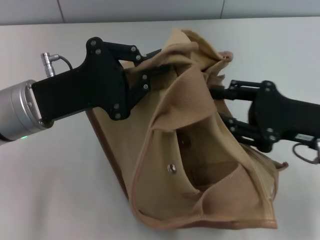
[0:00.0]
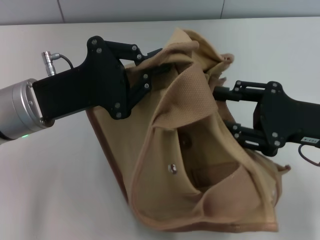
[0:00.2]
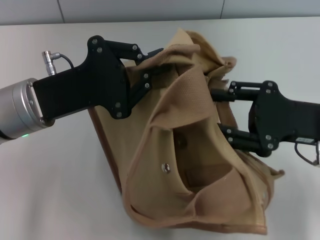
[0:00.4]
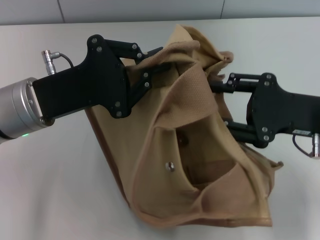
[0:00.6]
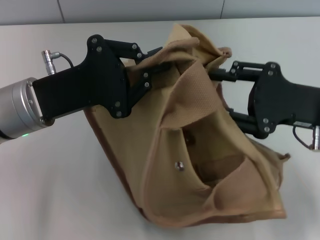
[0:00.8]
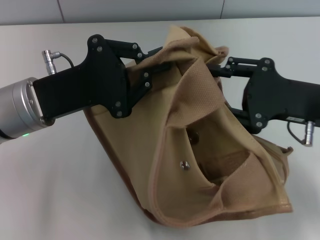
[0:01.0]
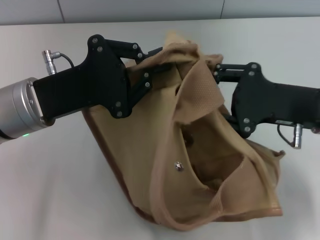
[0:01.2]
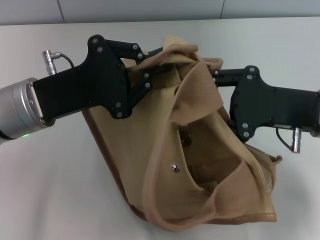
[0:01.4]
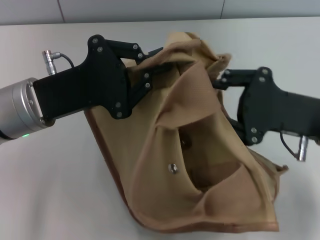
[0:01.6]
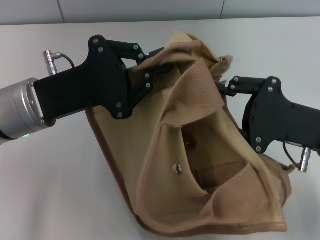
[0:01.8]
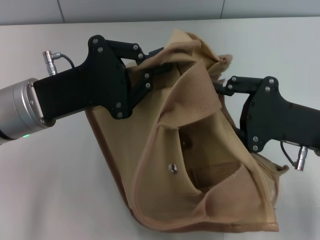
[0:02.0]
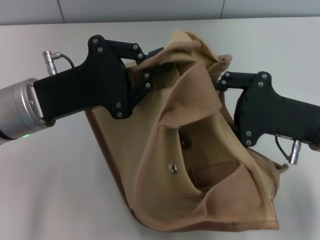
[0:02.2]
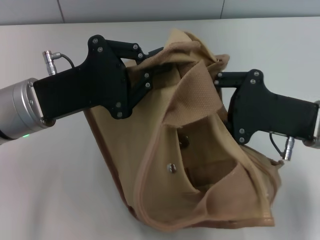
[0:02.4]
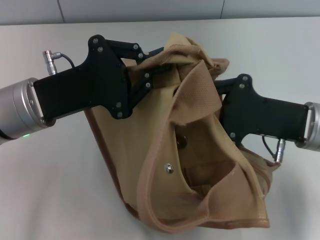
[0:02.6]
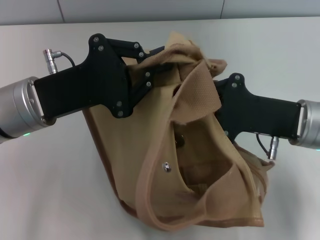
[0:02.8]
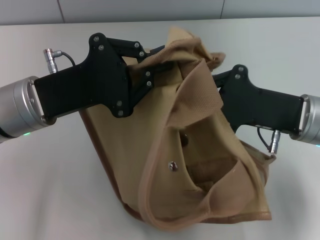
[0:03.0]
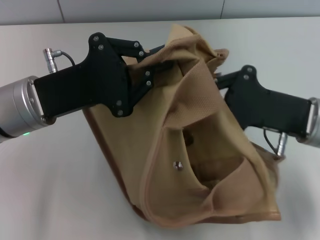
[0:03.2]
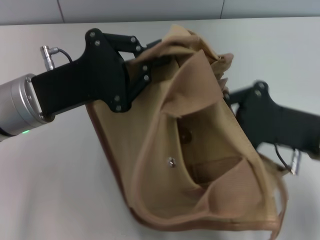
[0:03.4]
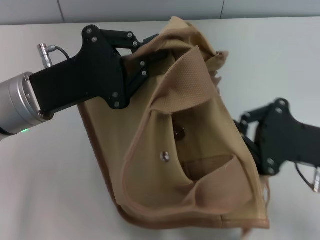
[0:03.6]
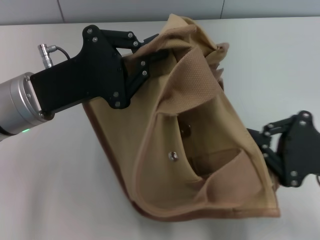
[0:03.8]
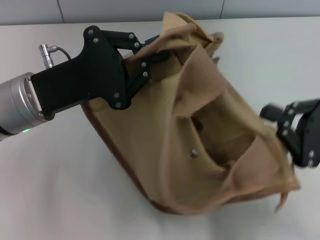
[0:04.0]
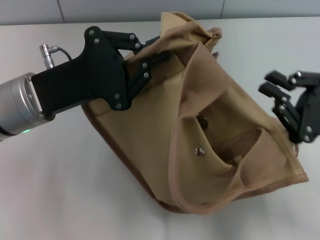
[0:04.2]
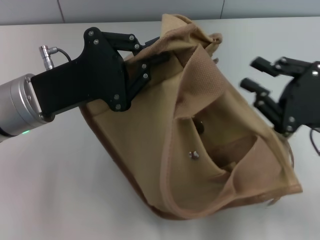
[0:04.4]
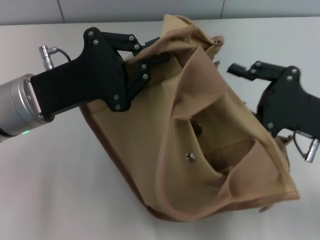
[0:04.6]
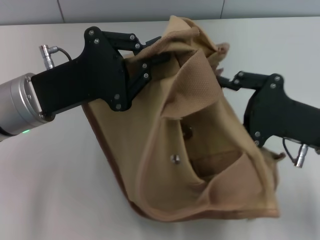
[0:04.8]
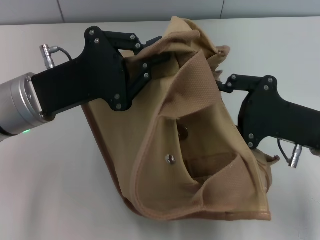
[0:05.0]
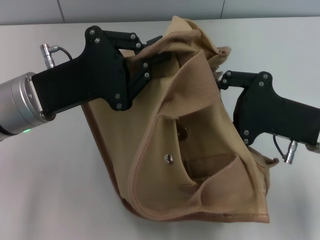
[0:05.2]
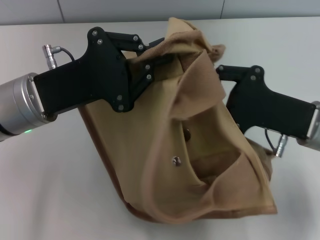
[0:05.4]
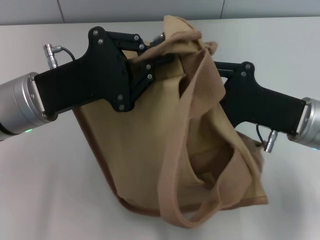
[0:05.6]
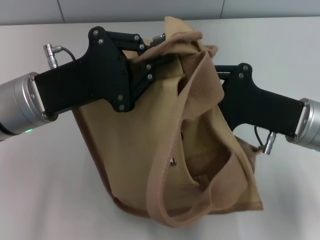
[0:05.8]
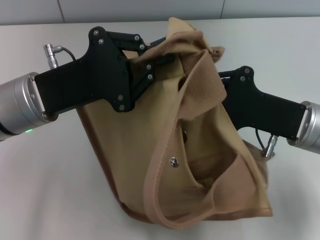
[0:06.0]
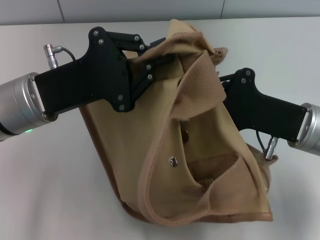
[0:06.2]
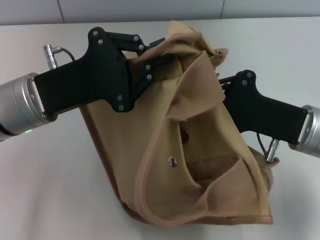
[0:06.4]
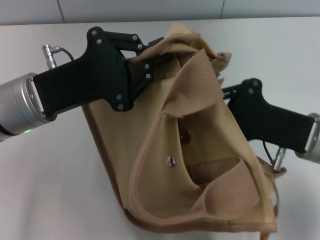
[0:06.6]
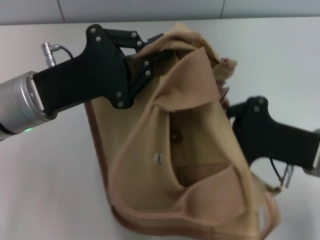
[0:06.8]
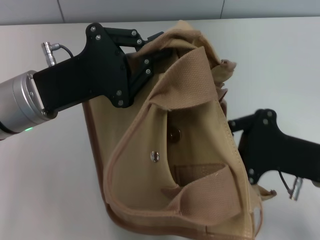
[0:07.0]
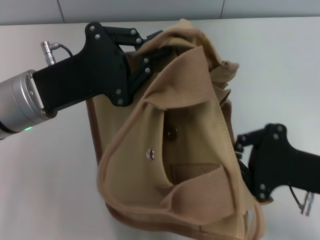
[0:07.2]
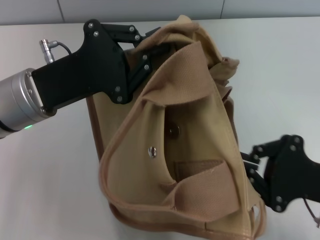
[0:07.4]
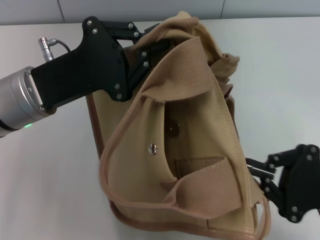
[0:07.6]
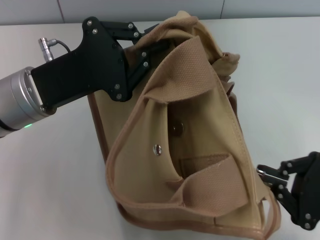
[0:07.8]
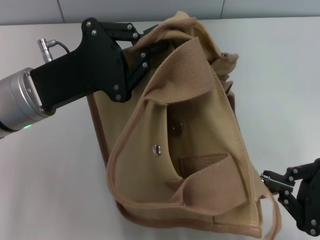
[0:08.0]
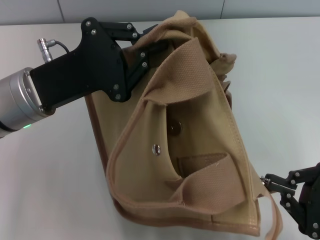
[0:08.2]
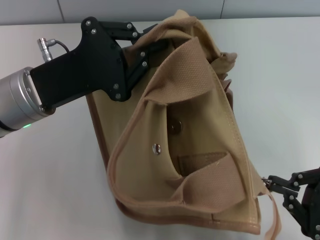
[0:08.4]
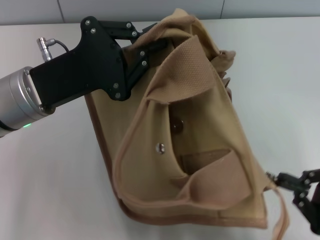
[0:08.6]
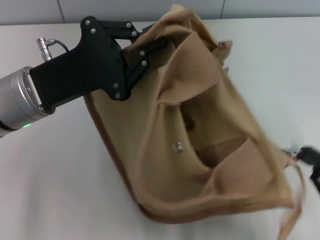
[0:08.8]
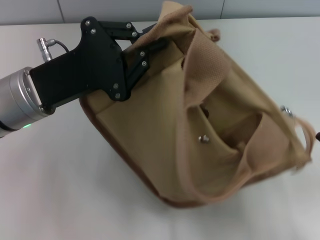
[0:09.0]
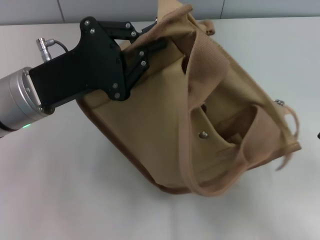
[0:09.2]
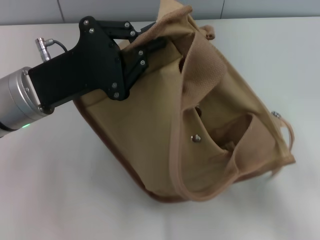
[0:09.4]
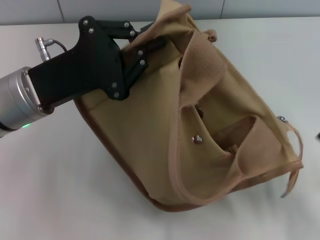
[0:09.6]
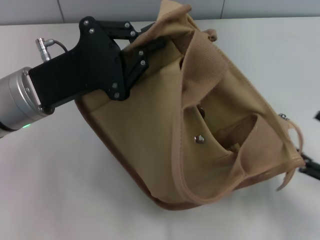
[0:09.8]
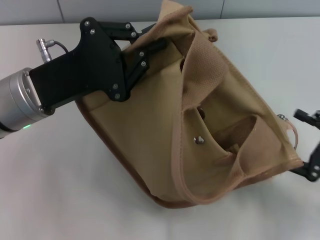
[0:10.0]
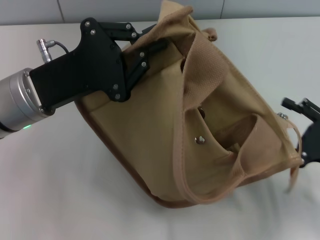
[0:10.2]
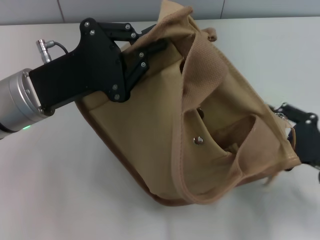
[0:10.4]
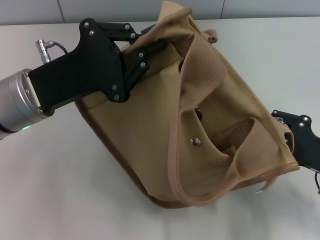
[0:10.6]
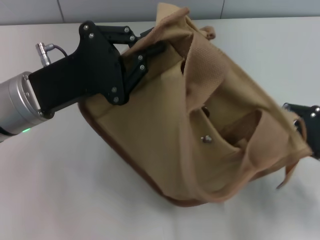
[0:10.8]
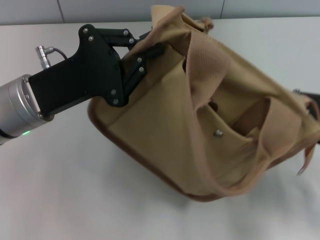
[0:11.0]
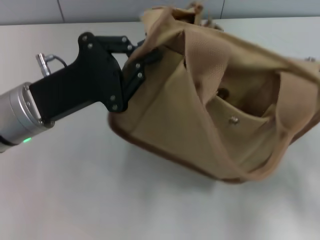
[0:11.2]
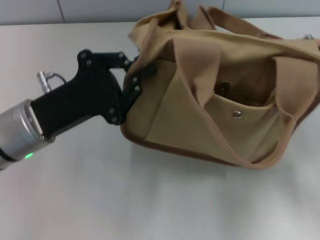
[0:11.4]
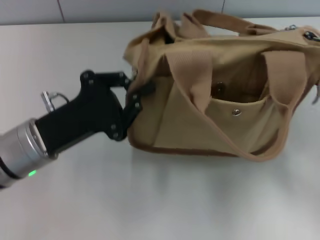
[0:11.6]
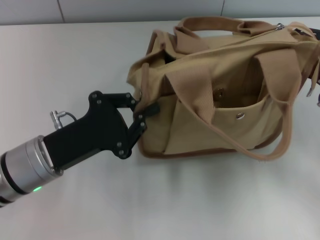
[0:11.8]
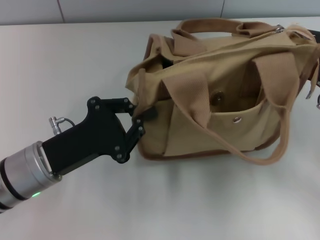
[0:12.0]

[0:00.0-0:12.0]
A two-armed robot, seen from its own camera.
Step, 0:00.0 to 0:09.2: Pull open the zipper with your right hand.
0:01.6 to 0:03.0: The right gripper closes up.
0:03.0 to 0:04.4: The right gripper is displaced to the right by some 5 cm.
0:04.4 to 0:06.0: The right gripper is displaced to the left by about 5 cm, and opens up.
0:06.0 to 0:07.6: The right gripper is displaced backward and to the right by approximately 10 cm, and closes its fingers.
0:07.6 to 0:09.0: The right gripper moves roughly 5 cm.
0:09.0 to 0:10.4: The right gripper shifts about 10 cm forward, and opens its fingers.
0:10.4 to 0:12.0: The right gripper shifts some 10 cm forward, and closes its fingers; the left gripper shifts about 10 cm downward and backward.

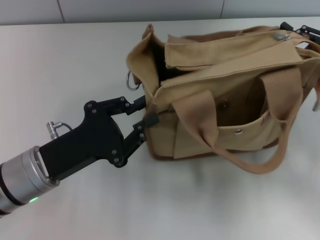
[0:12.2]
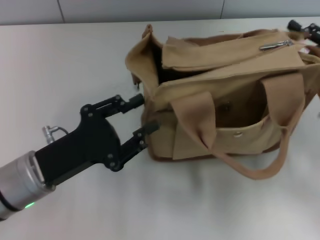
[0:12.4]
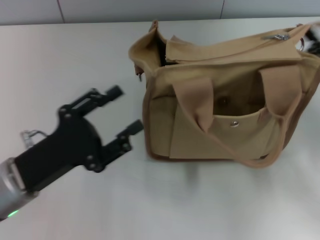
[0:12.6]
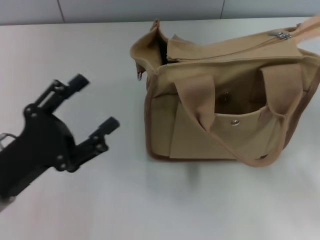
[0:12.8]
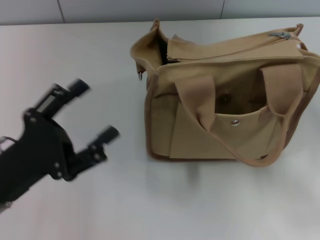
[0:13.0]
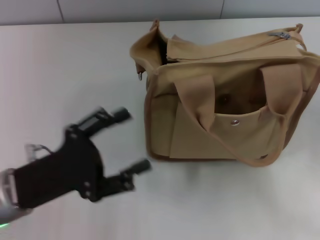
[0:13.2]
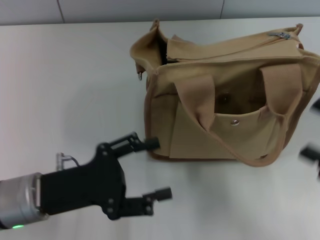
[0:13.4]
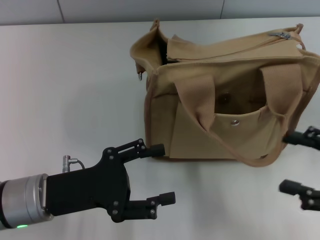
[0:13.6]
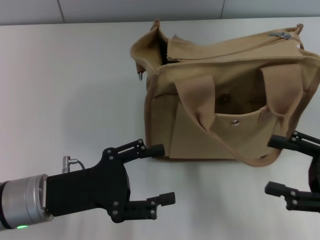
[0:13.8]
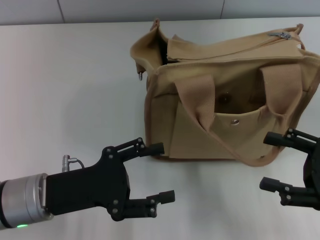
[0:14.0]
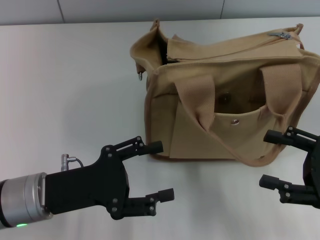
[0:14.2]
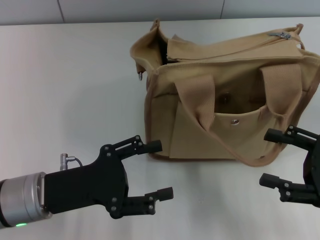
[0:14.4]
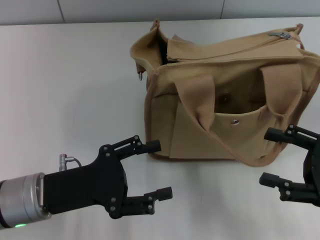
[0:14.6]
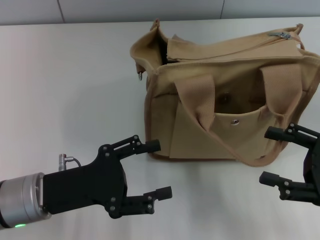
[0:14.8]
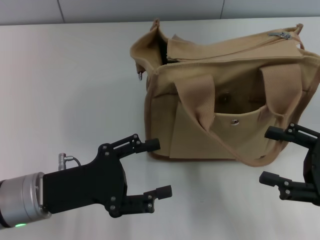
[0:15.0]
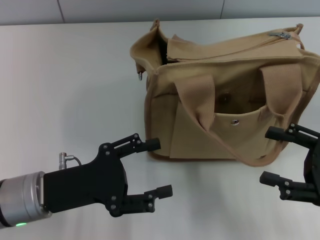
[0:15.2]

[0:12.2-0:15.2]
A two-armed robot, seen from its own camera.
0:12.2 to 0:13.8: The right gripper heads backward, covering approximately 10 cm, and opens its fingers, while the left gripper opens up.
0:13.8 to 0:15.2: Both grippers stay put.

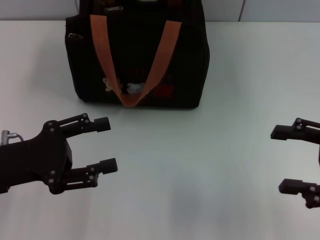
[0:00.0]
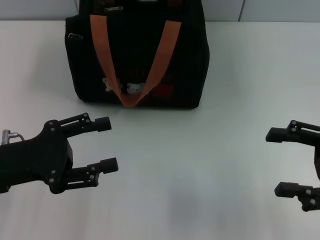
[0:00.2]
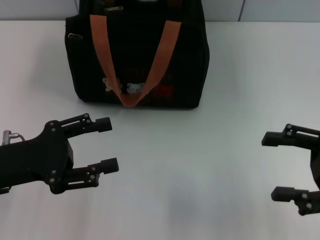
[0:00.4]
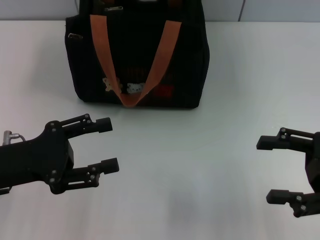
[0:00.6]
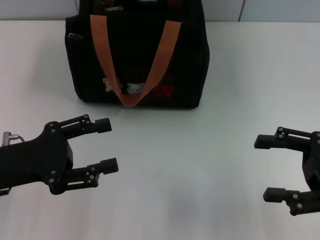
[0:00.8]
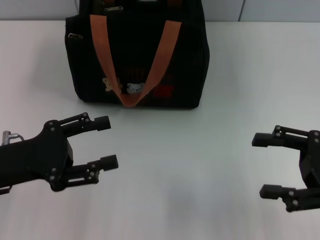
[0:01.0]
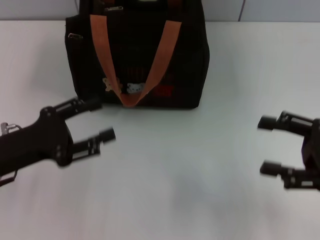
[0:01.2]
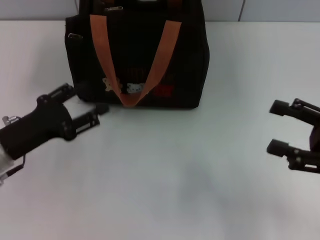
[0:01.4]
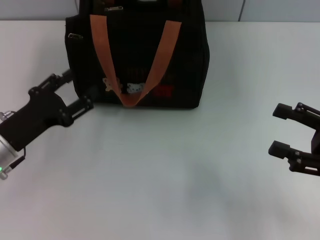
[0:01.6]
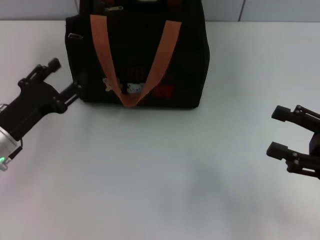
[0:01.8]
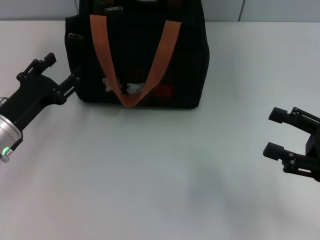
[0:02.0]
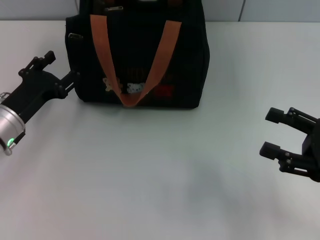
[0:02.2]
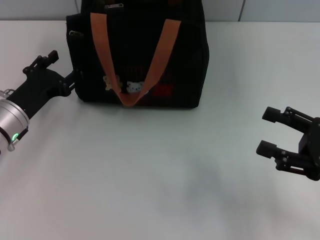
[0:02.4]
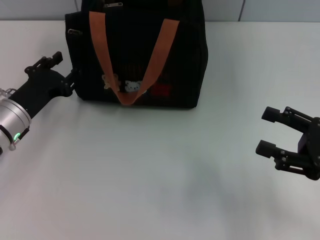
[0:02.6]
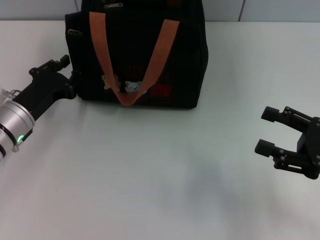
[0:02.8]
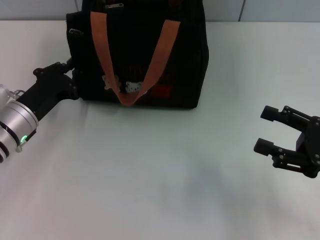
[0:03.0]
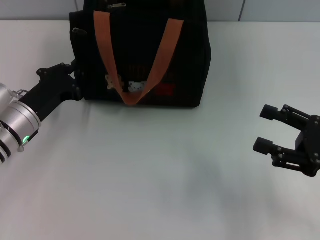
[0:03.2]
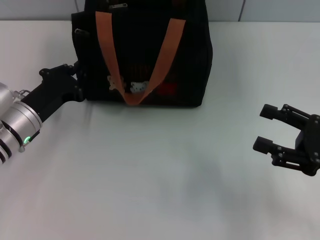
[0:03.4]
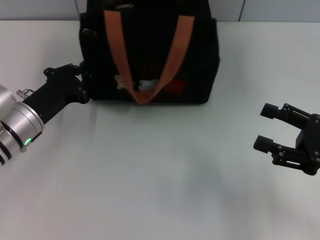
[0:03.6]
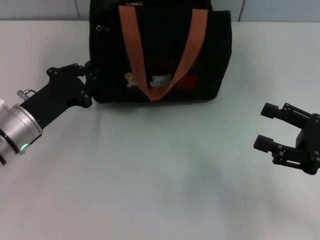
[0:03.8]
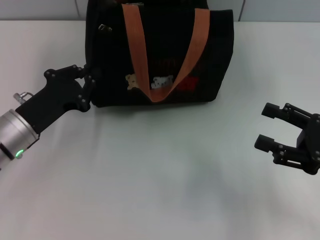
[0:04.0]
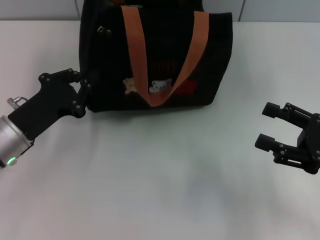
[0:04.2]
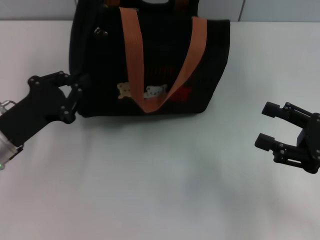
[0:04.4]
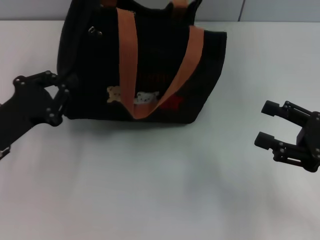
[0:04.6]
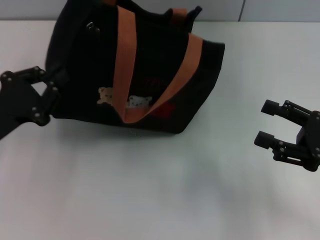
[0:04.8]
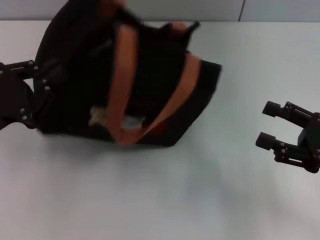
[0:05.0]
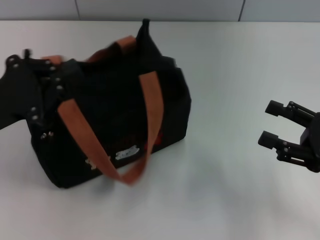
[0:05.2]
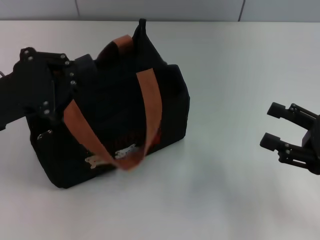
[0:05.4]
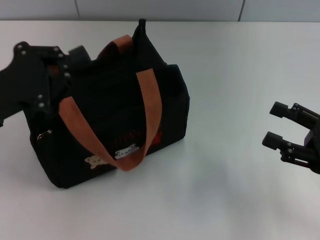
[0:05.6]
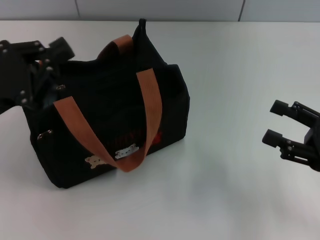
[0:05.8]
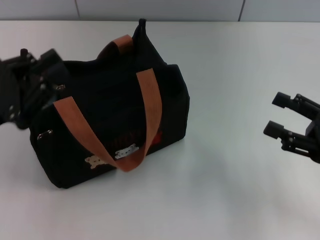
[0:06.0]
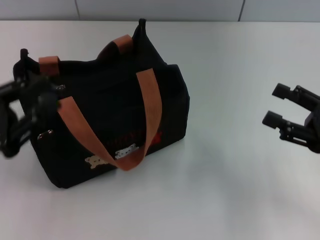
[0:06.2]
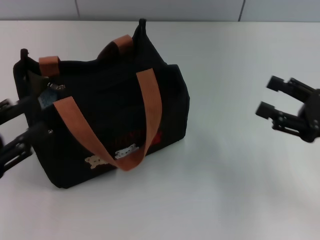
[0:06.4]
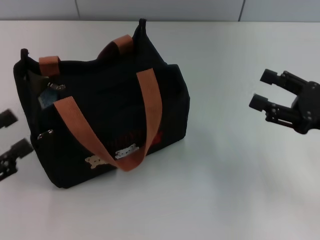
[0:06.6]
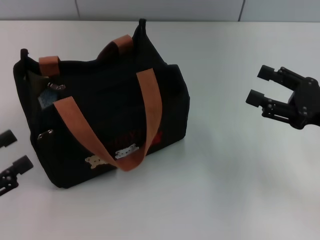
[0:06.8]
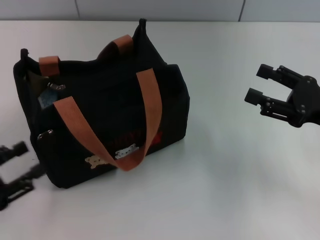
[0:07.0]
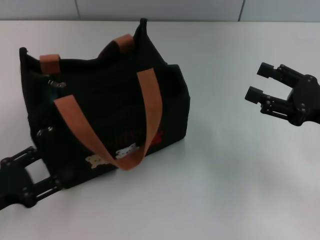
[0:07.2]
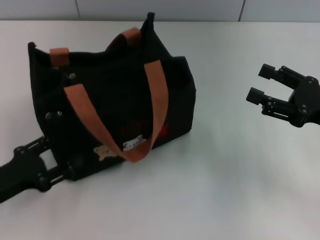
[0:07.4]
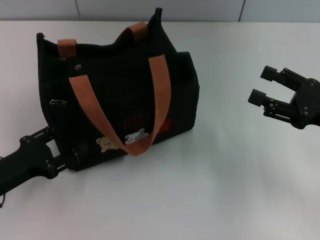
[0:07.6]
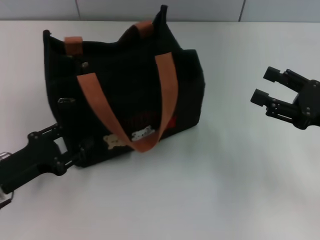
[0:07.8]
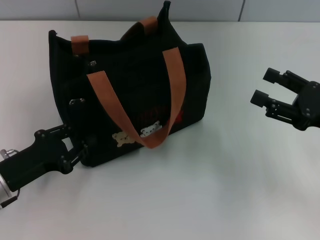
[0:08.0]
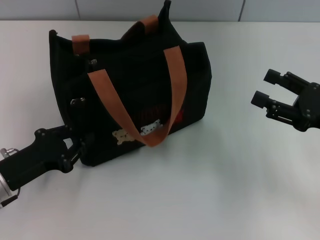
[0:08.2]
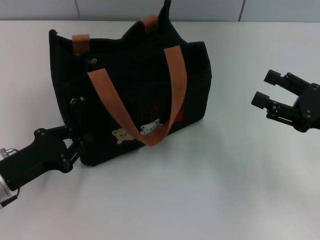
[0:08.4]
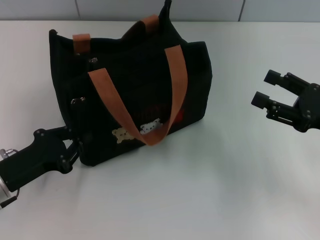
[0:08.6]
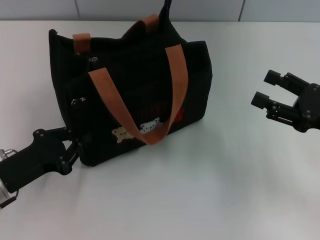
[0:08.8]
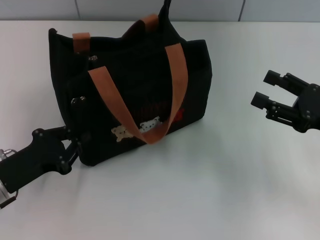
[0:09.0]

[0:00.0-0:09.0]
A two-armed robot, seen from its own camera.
0:00.0 to 0:01.6: The left gripper is displaced downward by roughly 5 cm.
0:01.6 to 0:03.0: The left gripper travels forward by about 5 cm, and closes its fingers.
0:03.0 to 0:04.4: The left gripper moves backward, about 5 cm, and closes.
0:04.4 to 0:06.0: The left gripper shifts some 5 cm upward.
0:06.0 to 0:07.6: The left gripper goes approximately 10 cm downward, and opens its fingers.
0:07.6 to 0:09.0: The left gripper closes its fingers.
